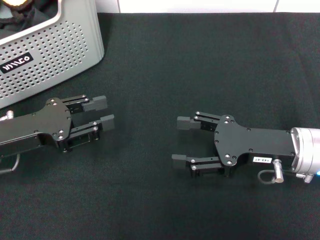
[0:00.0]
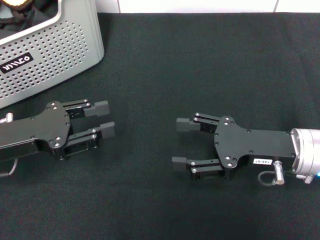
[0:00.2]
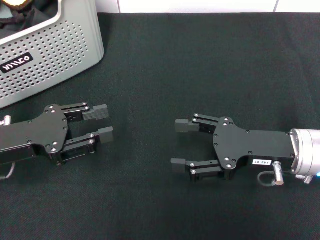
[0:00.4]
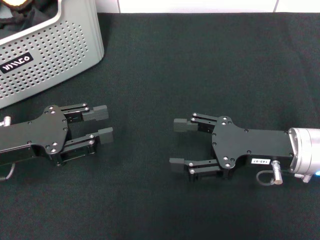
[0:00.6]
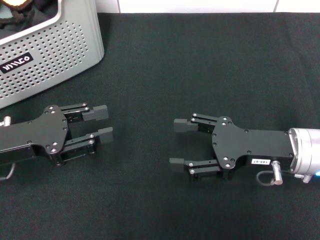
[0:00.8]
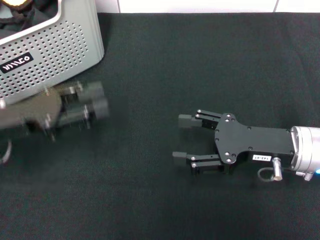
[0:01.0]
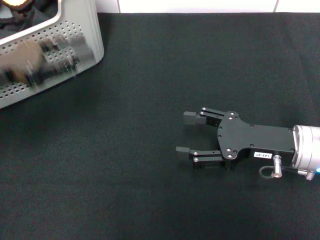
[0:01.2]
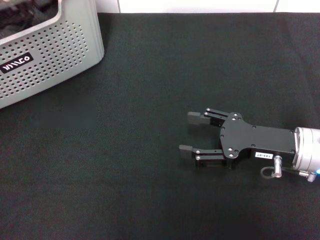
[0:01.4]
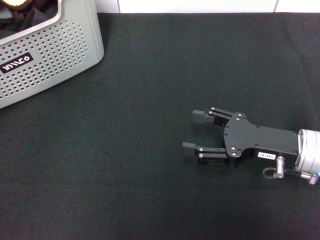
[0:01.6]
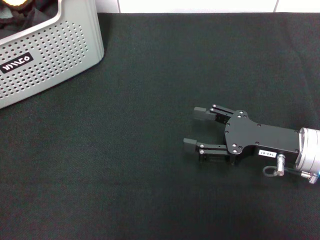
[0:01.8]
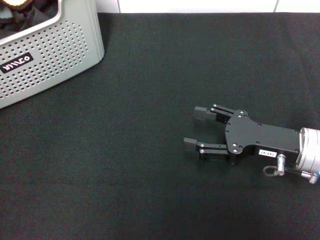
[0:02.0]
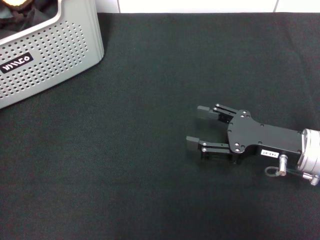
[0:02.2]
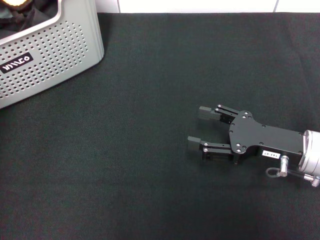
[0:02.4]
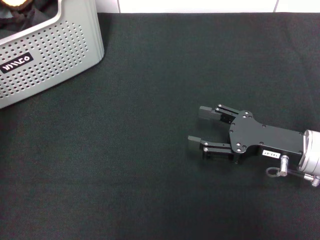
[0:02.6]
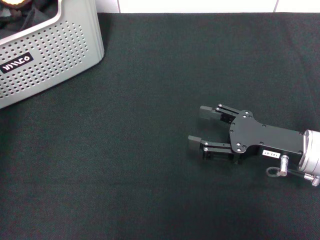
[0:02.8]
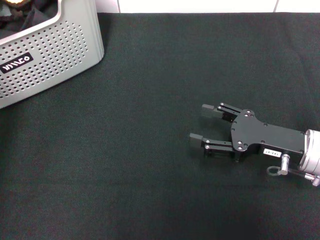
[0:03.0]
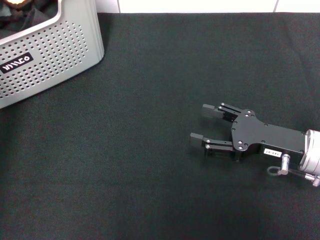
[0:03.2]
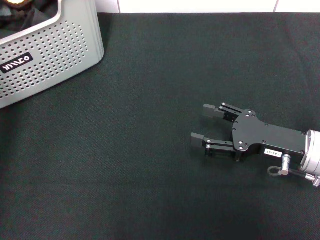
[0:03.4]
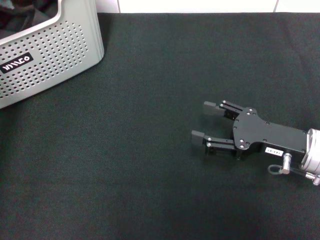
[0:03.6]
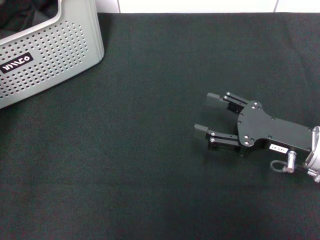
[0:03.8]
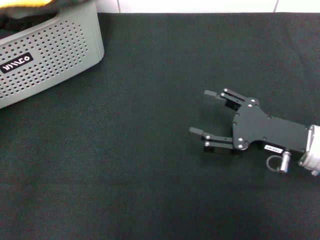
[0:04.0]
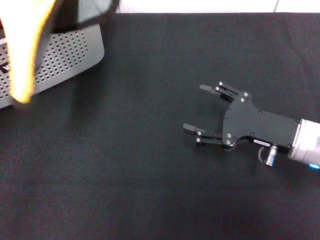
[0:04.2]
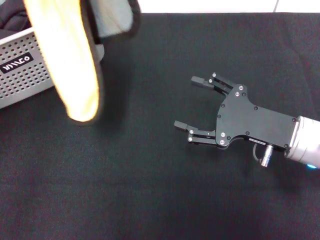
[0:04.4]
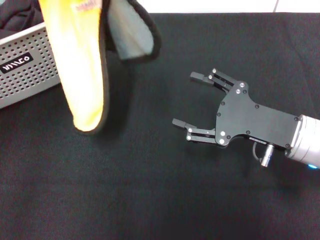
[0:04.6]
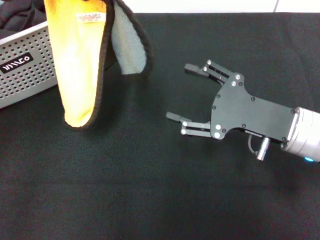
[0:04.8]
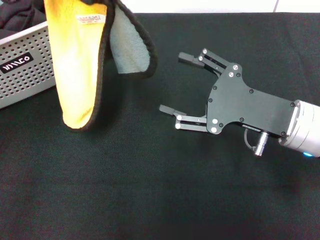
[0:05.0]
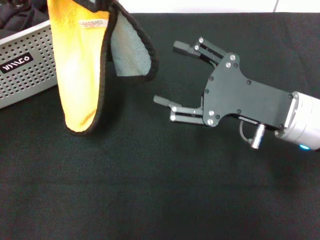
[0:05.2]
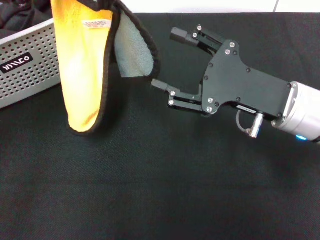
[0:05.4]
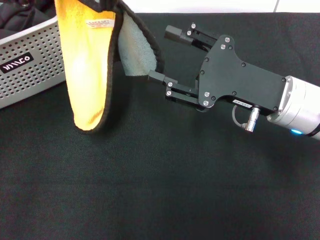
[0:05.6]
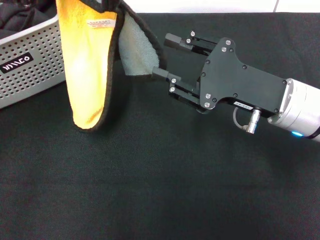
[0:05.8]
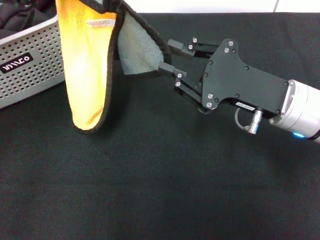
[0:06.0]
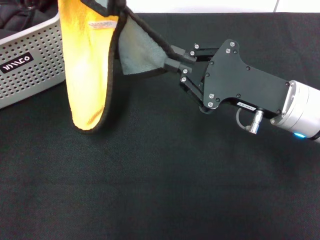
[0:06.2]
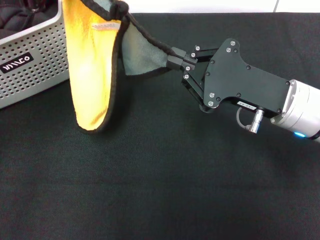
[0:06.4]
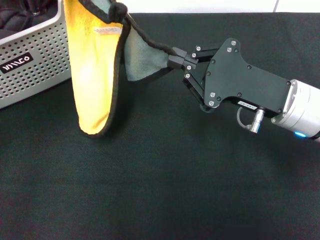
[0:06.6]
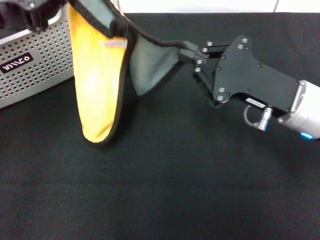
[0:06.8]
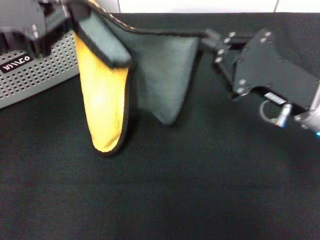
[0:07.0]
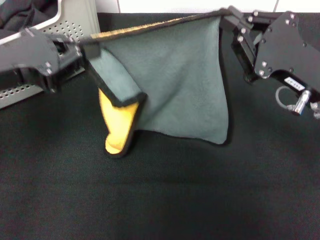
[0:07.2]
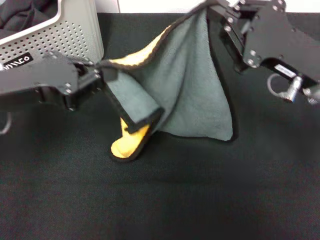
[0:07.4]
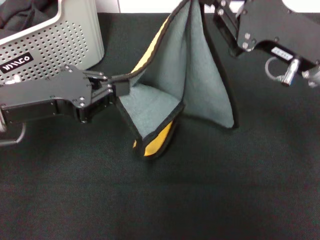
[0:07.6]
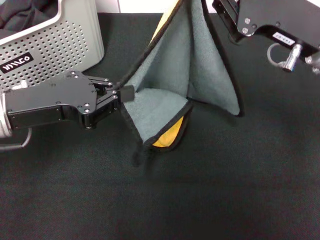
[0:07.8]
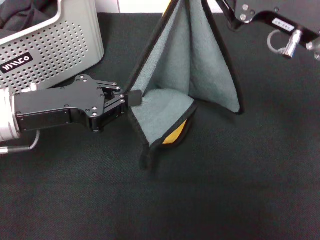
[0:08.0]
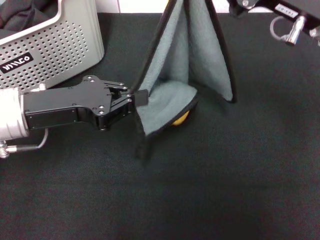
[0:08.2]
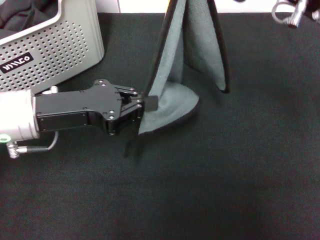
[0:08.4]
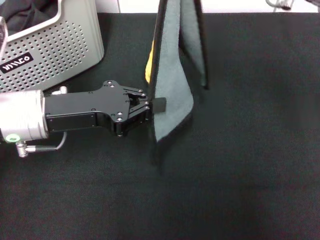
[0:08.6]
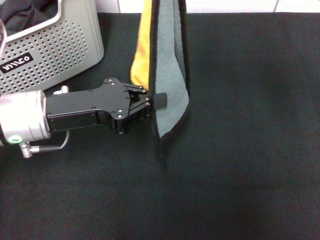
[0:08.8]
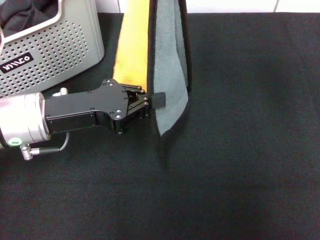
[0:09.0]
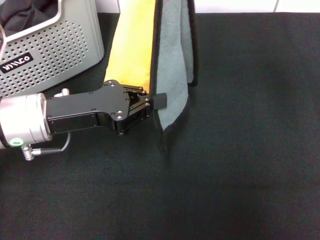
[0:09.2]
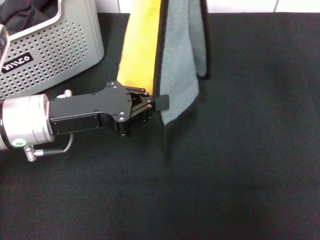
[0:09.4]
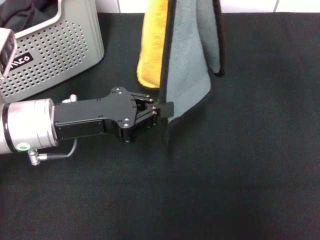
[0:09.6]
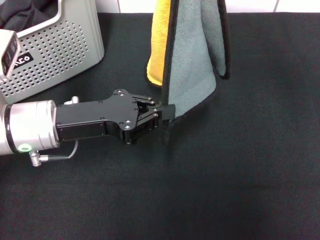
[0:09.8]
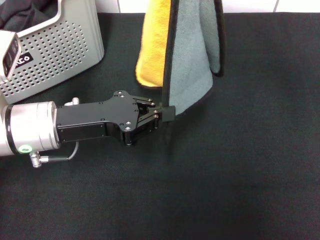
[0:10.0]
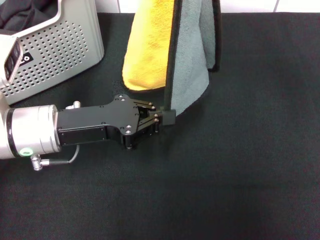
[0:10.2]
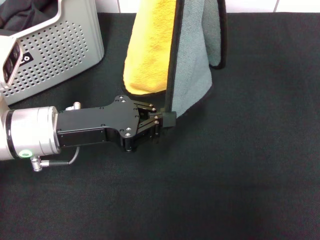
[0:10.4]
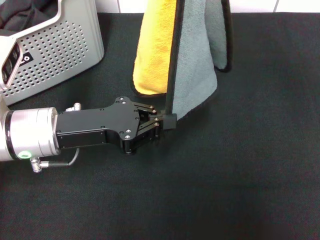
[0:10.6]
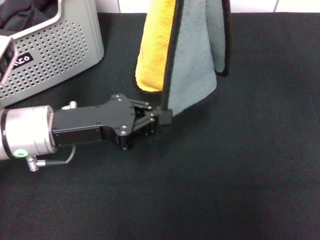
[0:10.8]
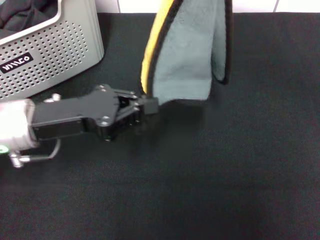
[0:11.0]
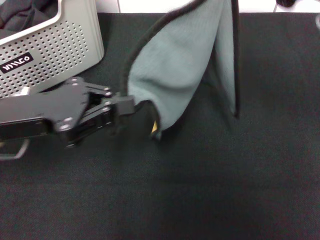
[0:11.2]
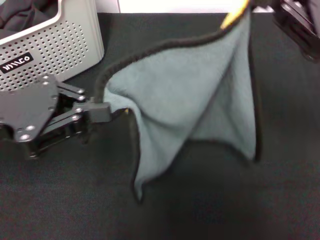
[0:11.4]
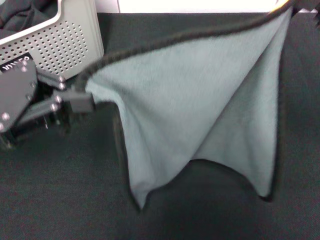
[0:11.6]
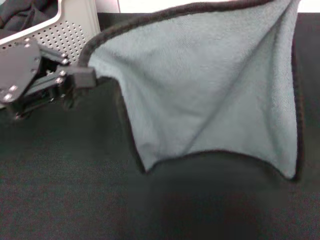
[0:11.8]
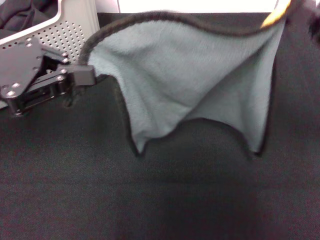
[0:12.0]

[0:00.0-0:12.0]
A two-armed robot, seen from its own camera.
Task of the whole recording: pick up the towel from the storage box and lay it flat on the black tablecloth.
Step, 0:00.0 to 0:03.2: Pick up a towel with the left gripper.
Step, 0:03.6 to 0:06.4: Spread the towel flat with the left gripper.
0:00.0 to 0:01.6: The left gripper goes some 15 cm upward.
0:01.6 to 0:03.0: The left gripper goes approximately 5 cm forward.
0:03.0 to 0:04.4: The left gripper goes approximately 10 cm backward and upward, and closes its fingers.
0:04.4 to 0:06.0: The right gripper shifts by roughly 5 cm, and closes up.
0:06.0 to 0:07.6: The left gripper goes some 10 cm downward. Meanwhile the right gripper changes place by roughly 5 cm, and closes.
0:07.6 to 0:09.0: The right gripper heads upward, covering about 10 cm; the left gripper changes place by some 5 cm.
0:10.4 to 0:12.0: The left gripper heads upward and to the left, covering roughly 15 cm. Meanwhile the right gripper goes roughly 15 cm downward, backward and to the right.

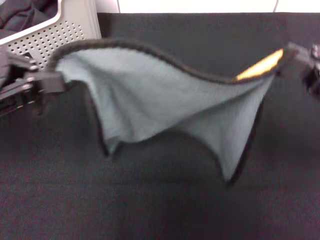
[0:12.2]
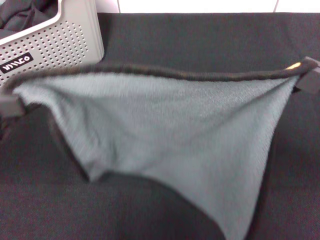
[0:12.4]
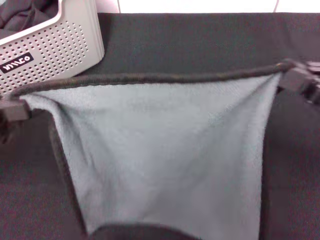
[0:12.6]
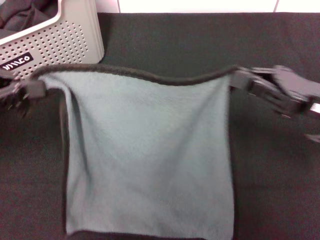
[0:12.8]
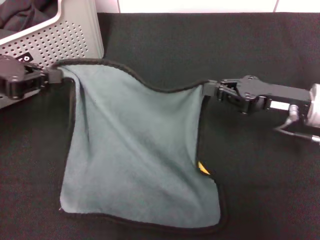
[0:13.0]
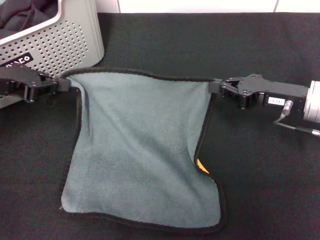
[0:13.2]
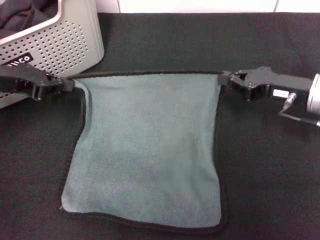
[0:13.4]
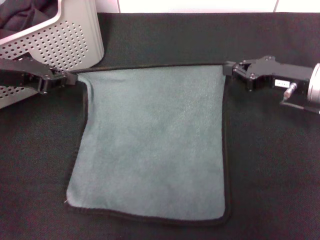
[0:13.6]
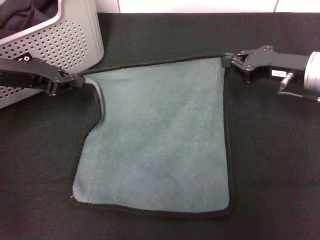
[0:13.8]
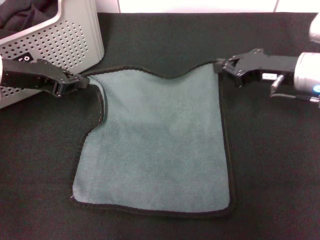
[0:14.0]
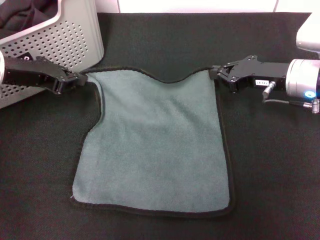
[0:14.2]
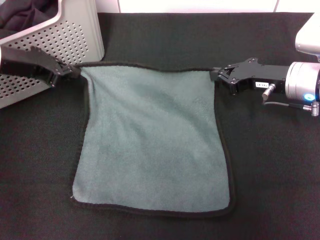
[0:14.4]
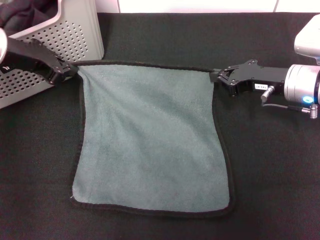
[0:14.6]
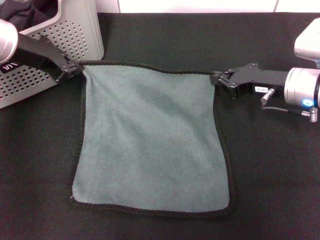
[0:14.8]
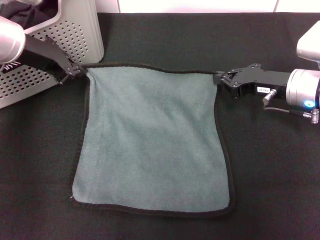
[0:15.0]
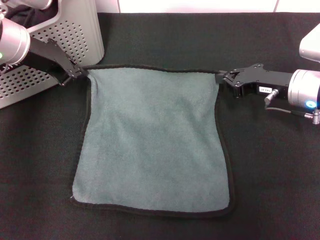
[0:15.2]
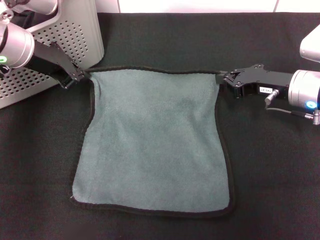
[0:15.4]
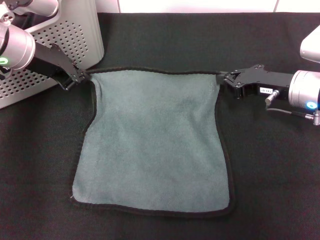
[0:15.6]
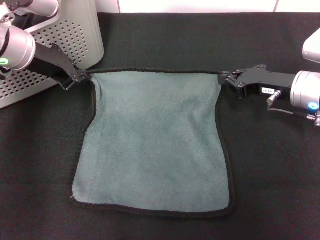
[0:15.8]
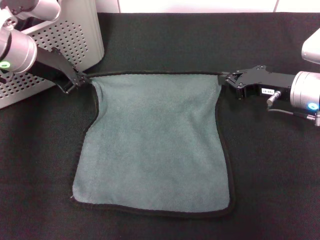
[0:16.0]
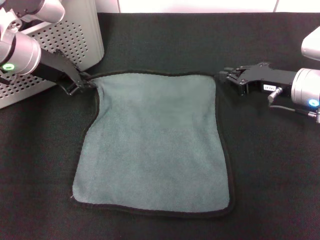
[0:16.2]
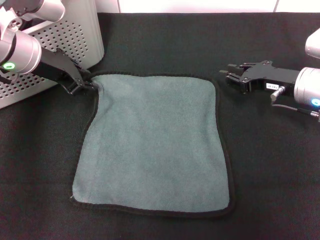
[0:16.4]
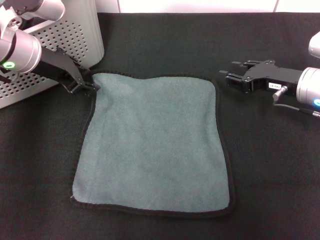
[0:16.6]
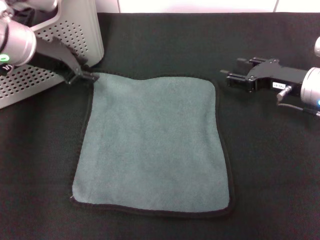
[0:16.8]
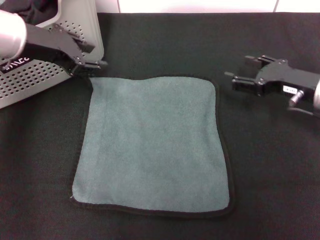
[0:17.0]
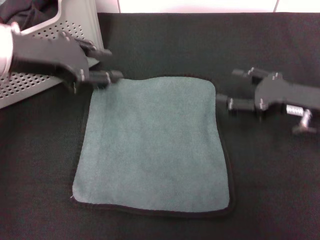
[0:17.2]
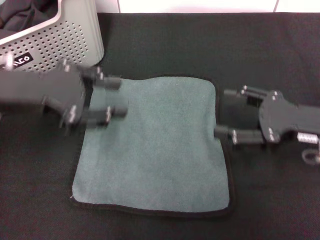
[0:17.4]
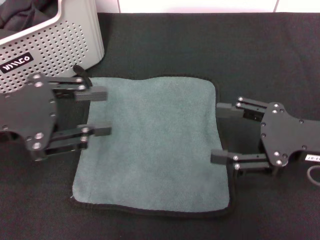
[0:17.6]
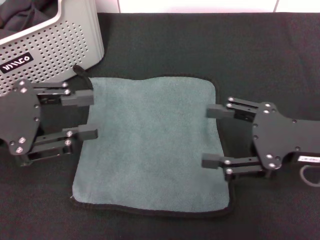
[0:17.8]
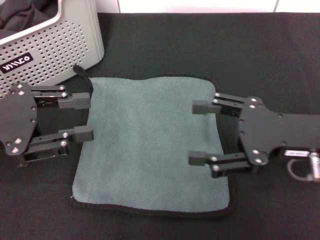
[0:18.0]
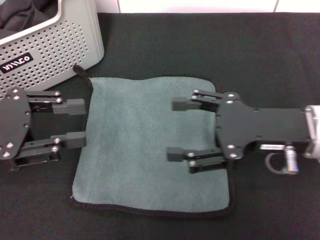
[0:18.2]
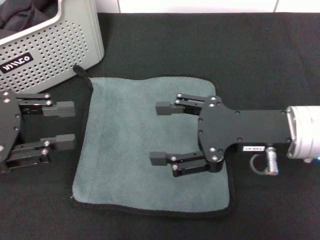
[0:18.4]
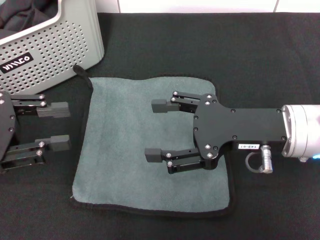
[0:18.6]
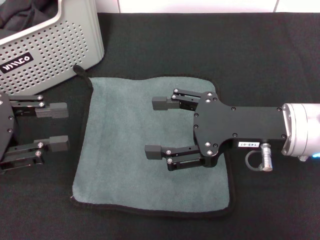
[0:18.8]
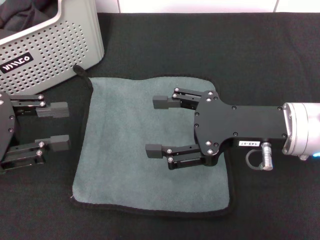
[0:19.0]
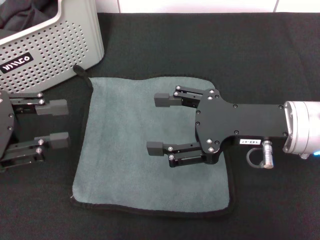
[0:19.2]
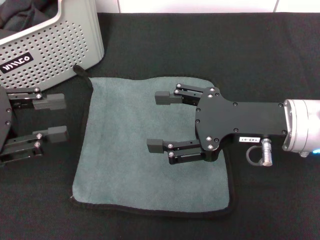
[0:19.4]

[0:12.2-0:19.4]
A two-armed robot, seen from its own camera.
Task of the whole recording: pick up the towel from the storage box and lay it flat on the black tablecloth.
Step, 0:12.2 to 0:16.8: Spread the towel flat with the right gripper.
0:12.2 to 0:13.6: The two grippers go about 15 cm forward and downward.
0:13.6 to 0:15.0: The left gripper goes some 5 cm to the right.
0:15.0 to 0:16.6: The left gripper opens its fingers.
0:16.6 to 0:18.0: The right gripper shifts some 15 cm backward and upward, and opens up. The left gripper shifts some 15 cm backward and to the left.
0:18.0 to 0:19.4: The grippers make only small movements.

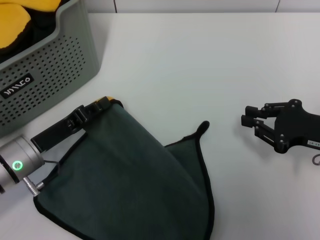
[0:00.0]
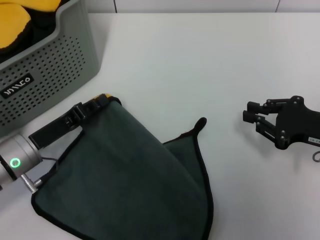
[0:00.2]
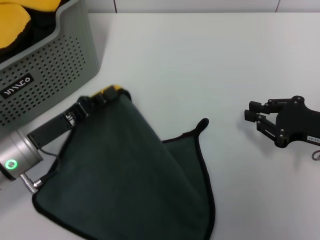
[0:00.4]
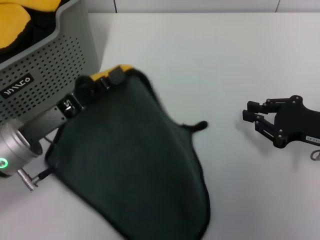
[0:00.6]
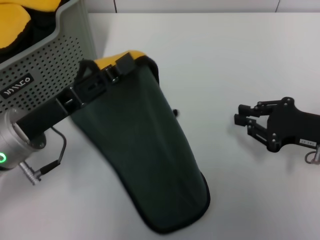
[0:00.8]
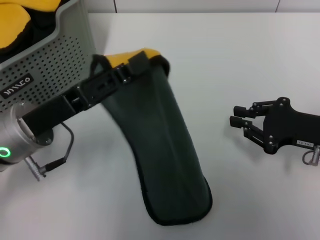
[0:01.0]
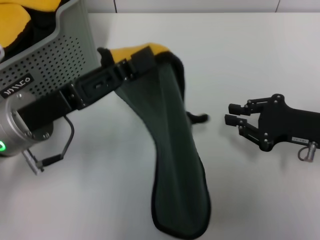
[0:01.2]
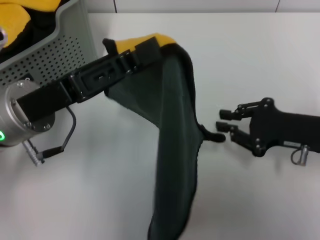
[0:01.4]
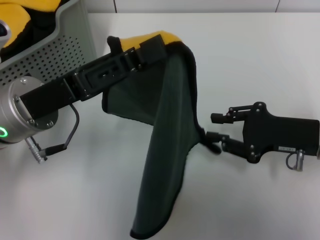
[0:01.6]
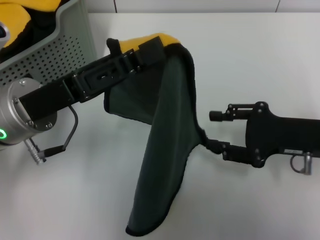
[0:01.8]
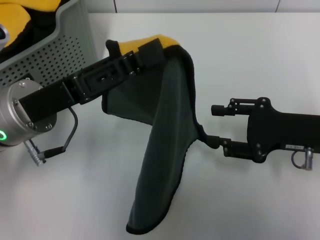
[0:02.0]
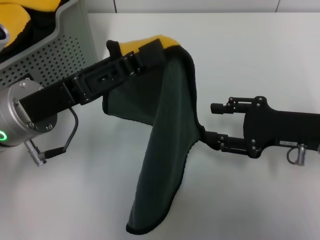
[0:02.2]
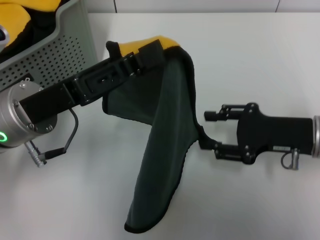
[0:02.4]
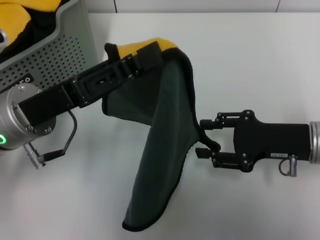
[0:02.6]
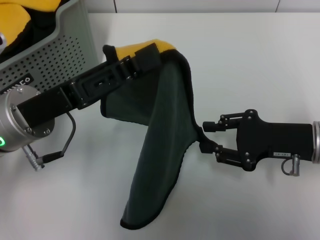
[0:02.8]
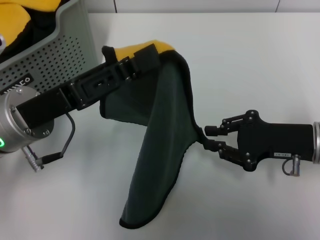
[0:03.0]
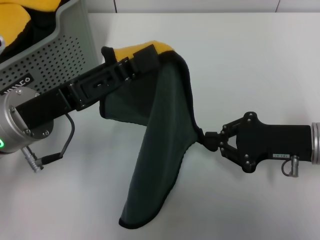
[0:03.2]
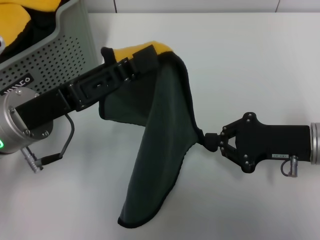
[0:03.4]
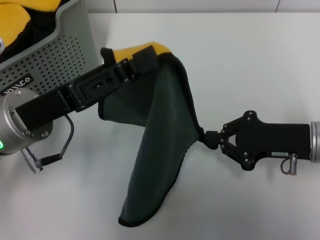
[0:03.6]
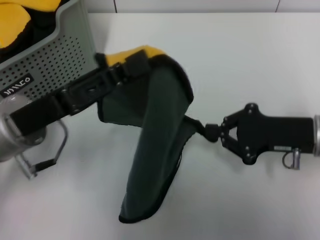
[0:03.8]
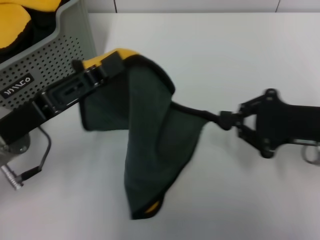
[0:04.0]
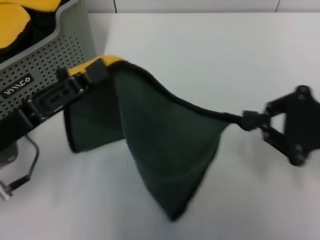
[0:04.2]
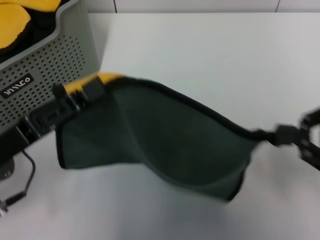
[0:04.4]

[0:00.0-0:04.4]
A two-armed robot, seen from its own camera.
Task of the whole recording: pick up the towel from the storage box and lay it flat on the table.
0:00.0 to 0:01.4: The left gripper is displaced upward and to the right by approximately 15 cm.
0:03.0 to 0:04.4: The right gripper goes roughly 15 cm upward, backward and to the right, and closes, while the left gripper moves about 5 cm.
